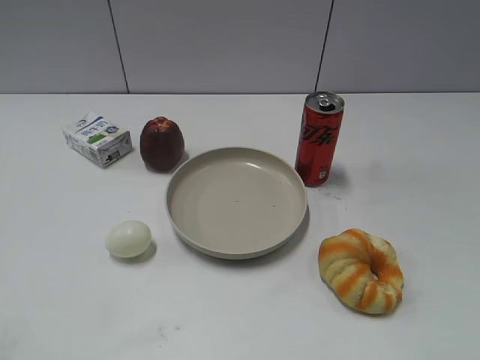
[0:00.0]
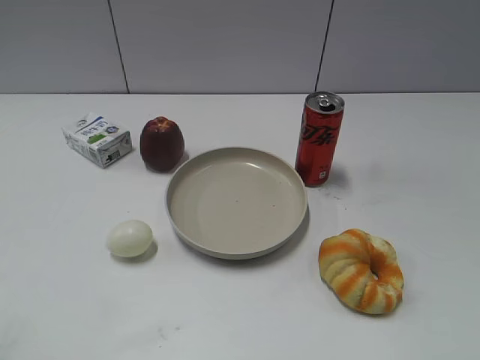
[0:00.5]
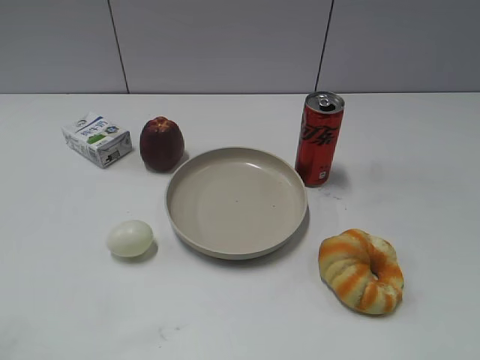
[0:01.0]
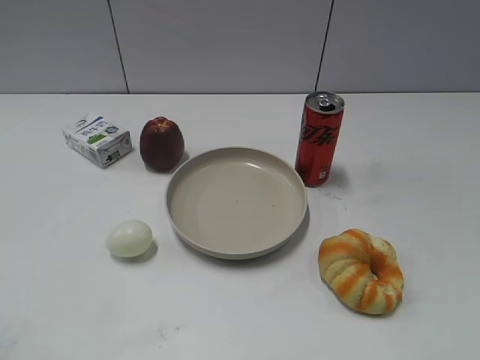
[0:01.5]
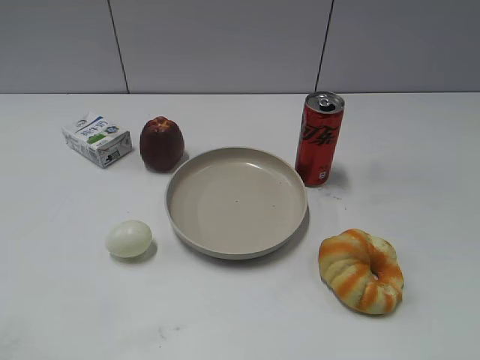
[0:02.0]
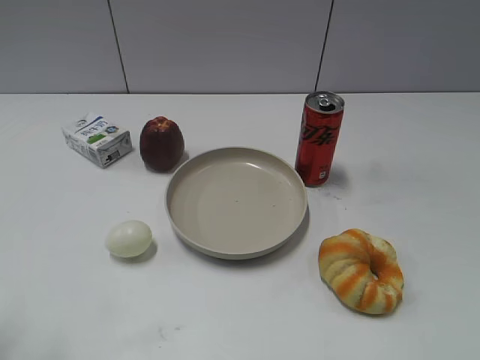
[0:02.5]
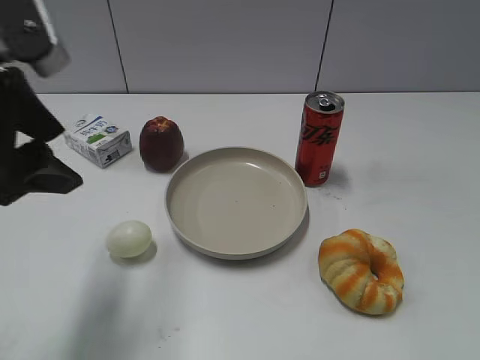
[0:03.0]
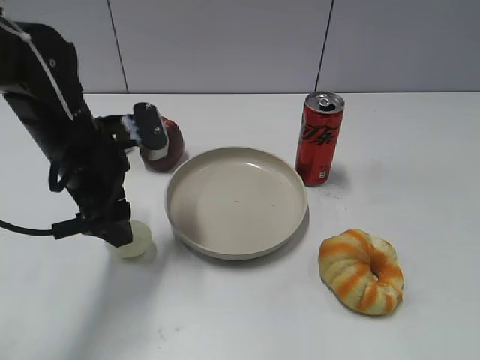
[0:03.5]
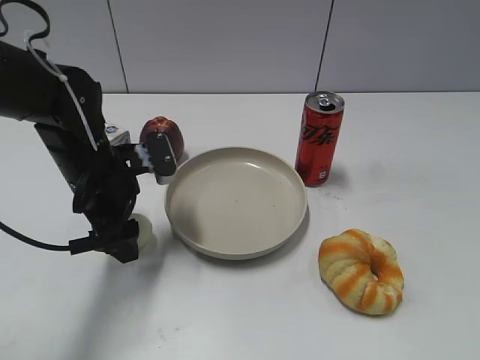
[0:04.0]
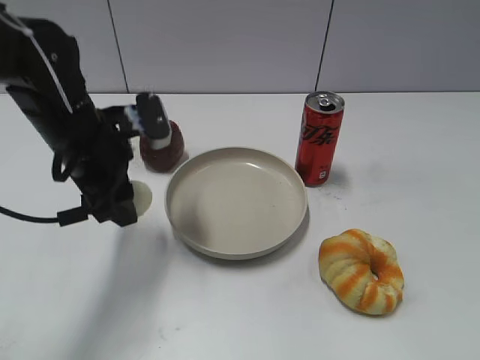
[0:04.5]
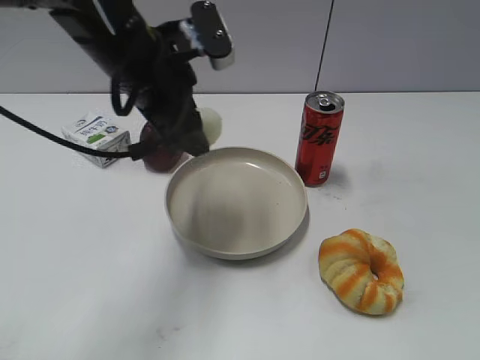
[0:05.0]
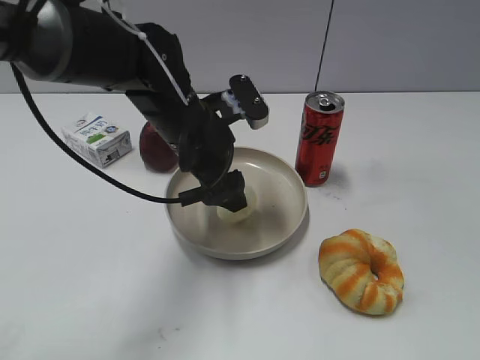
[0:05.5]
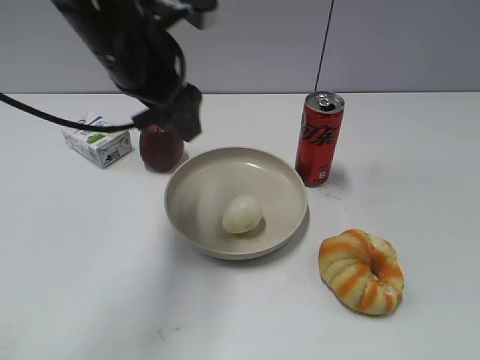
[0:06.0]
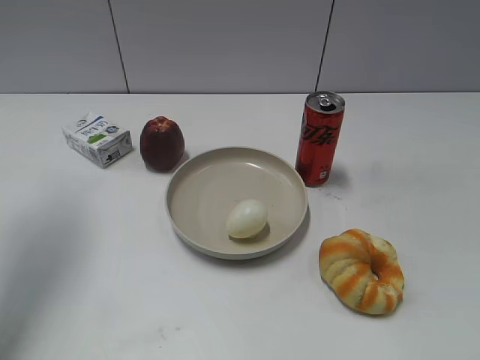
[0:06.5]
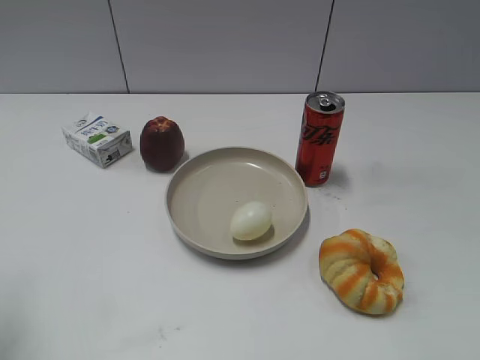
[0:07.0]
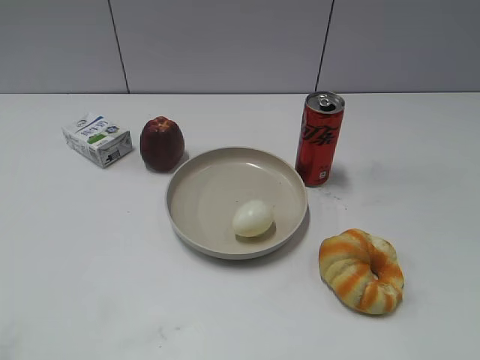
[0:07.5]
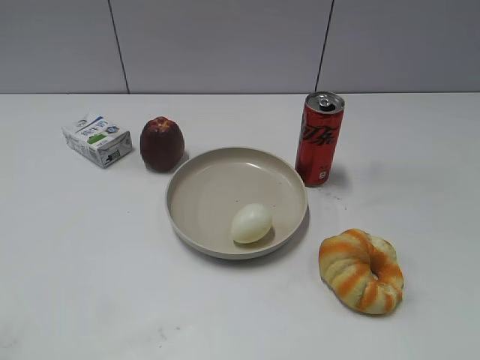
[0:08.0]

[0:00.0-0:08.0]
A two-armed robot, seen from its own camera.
Step, 0:02.0 to 0:04.0: Grasp the egg with left gripper.
Step, 0:04.5 to 0:05.5: Place the egg on the plate with left gripper.
0:02.0 to 0:04.0: The left gripper is displaced forward, to the right and downward by approximately 40 cm, and opens its fingers.
0:04.0 to 0:06.0: The left gripper goes up and down, approximately 10 cm each way, reversing 2 times, and closes, then reopens.
0:06.0 to 0:08.0: The left gripper moves backward and to the left, about 40 cm.

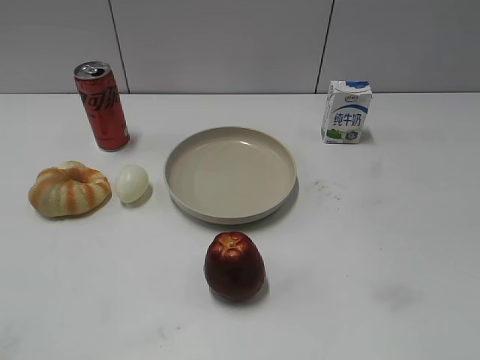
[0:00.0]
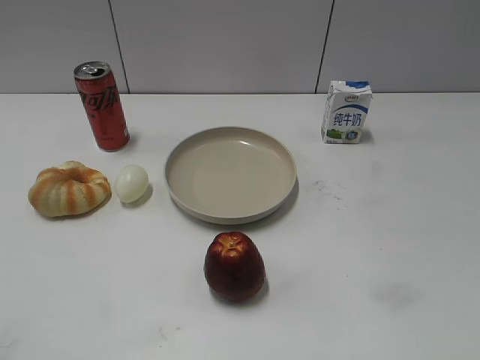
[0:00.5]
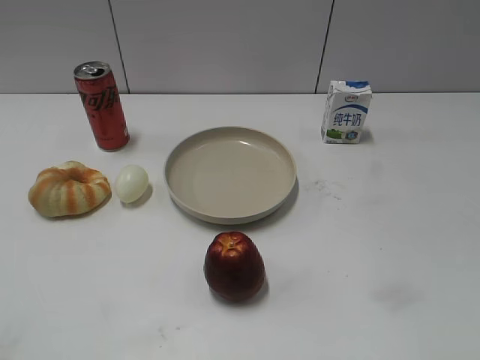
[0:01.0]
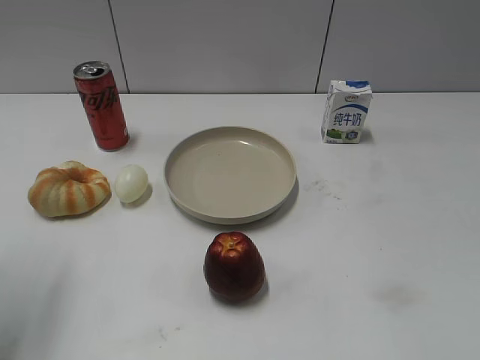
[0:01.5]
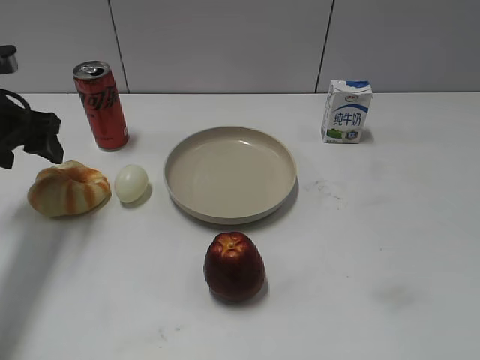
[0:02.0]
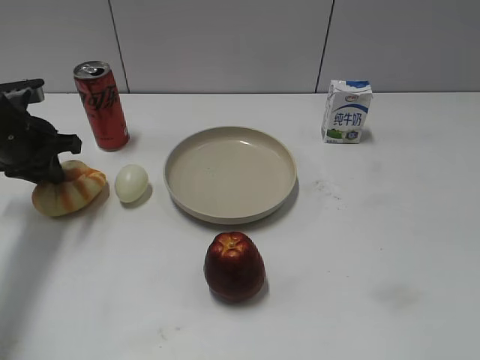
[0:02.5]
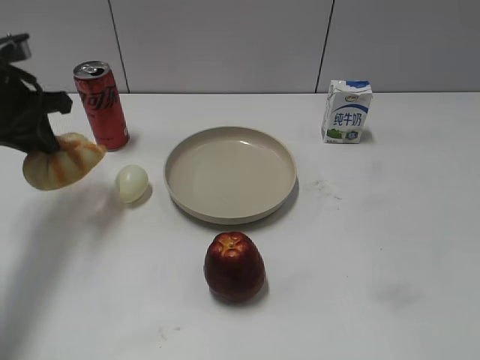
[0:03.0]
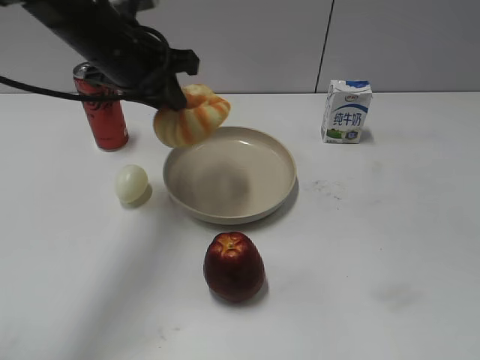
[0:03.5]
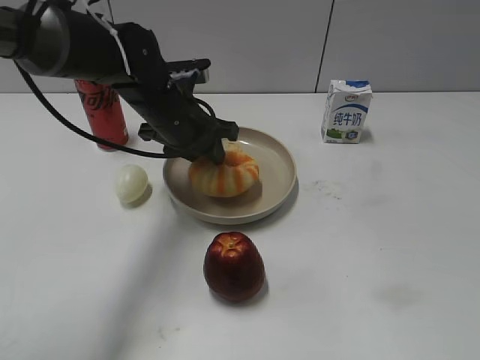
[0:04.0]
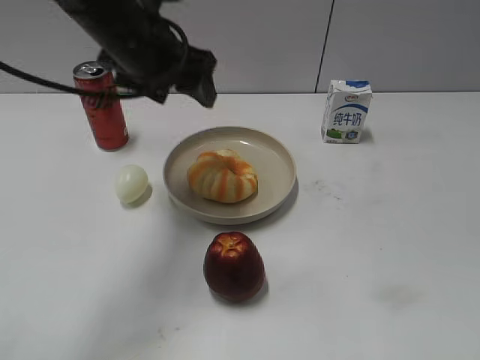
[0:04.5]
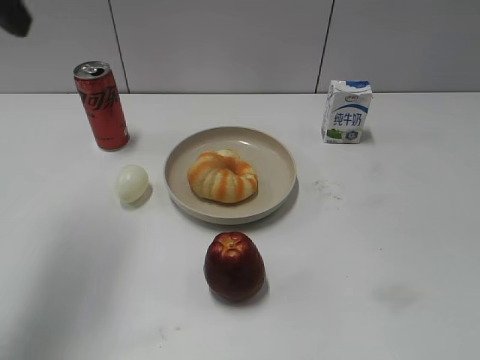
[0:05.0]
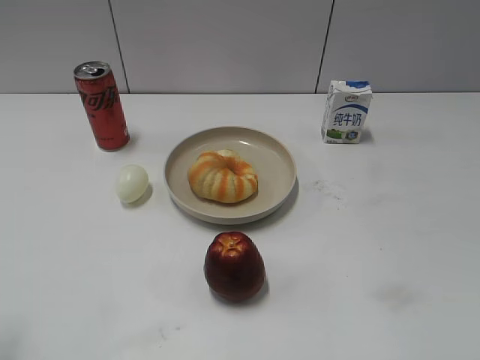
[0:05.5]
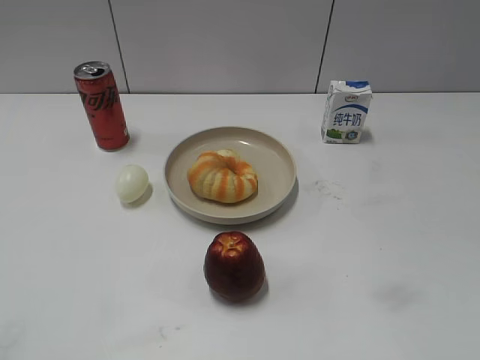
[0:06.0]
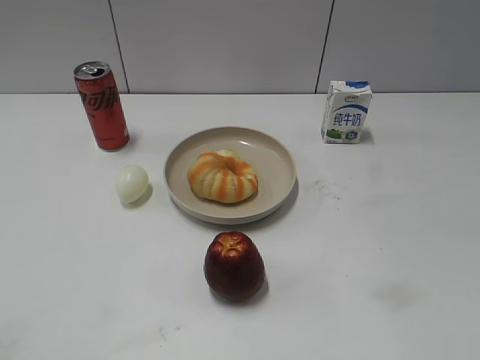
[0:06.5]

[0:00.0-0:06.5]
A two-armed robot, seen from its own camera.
Step, 0:01.0 to 0:02.5: Grasp the round bread with left gripper.
Step, 0:03.0 to 0:04.0: Place the round bread on the plate with left gripper.
0:02.0 to 0:04.5: The left gripper travels to the right and upward by about 20 cm, and closes, then reopens.
0:04.5 to 0:06.5: The left gripper heads backward and to the left, covering roughly 40 cm.
